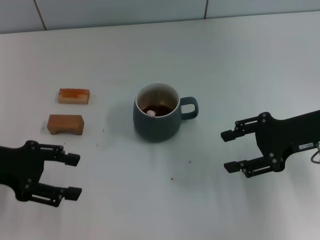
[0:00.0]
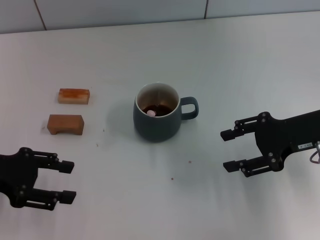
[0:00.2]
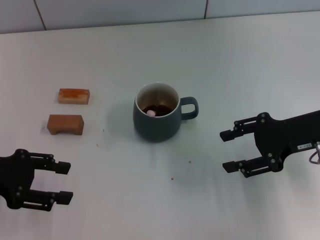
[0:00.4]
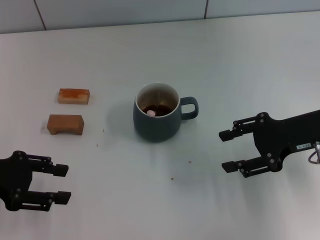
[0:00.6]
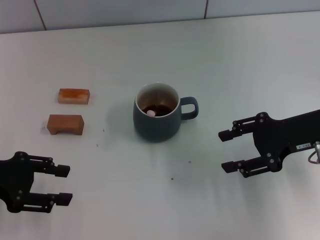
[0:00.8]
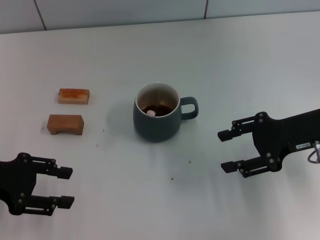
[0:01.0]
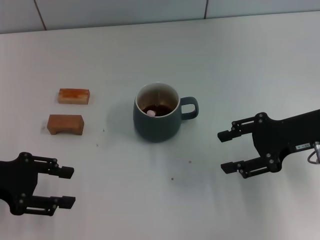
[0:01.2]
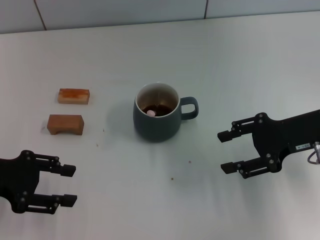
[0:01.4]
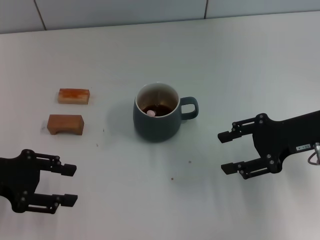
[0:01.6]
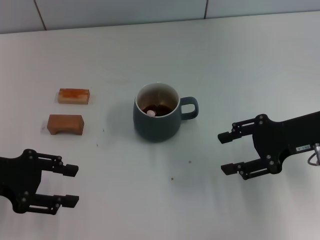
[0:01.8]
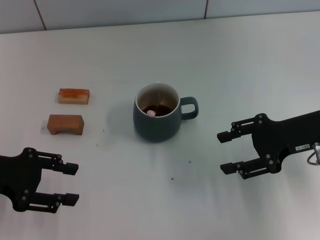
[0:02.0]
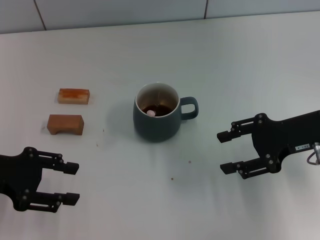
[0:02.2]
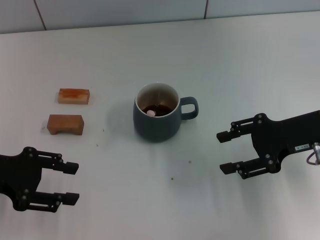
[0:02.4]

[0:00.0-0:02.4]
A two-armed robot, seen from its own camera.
Task of the whole recording: Move the grey cup to the center, lift the pink spoon, stir it three times in the cup, and put the spoon into the cup.
0:00.0 to 0:01.2: There are only small adjustments of the grippers.
0:01.2 to 0:02.4: Neither gripper changes place.

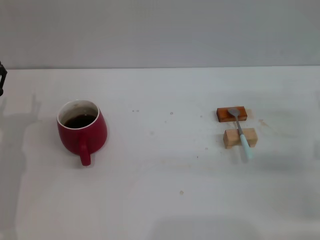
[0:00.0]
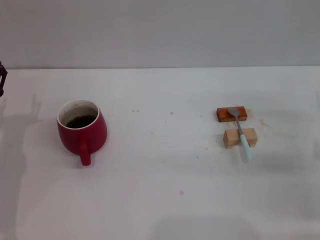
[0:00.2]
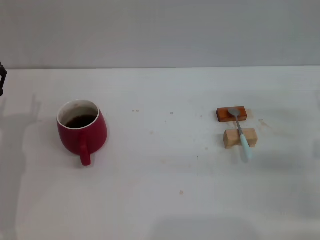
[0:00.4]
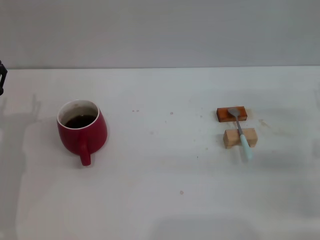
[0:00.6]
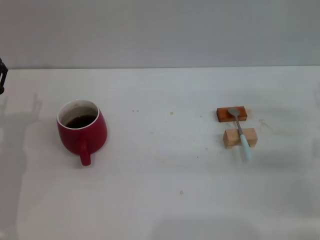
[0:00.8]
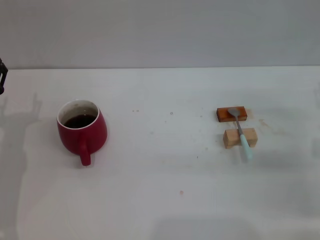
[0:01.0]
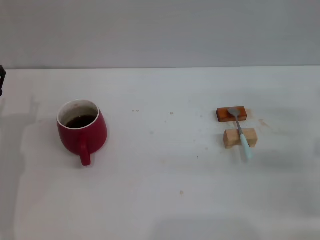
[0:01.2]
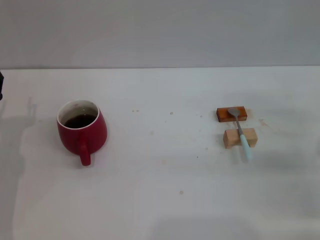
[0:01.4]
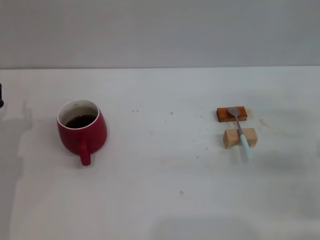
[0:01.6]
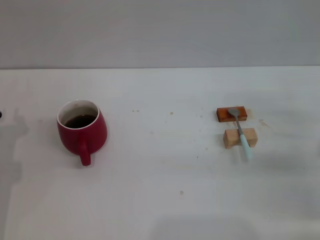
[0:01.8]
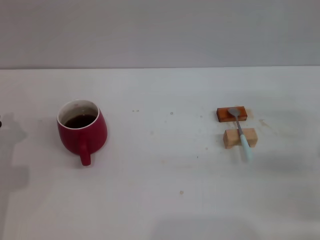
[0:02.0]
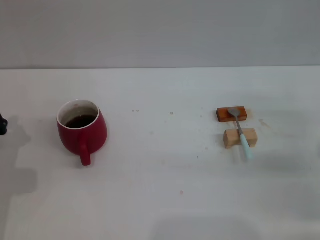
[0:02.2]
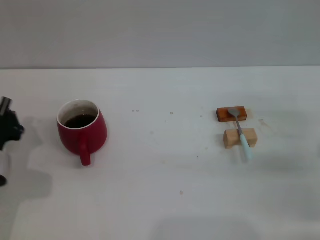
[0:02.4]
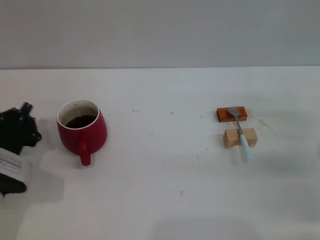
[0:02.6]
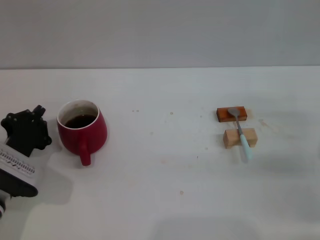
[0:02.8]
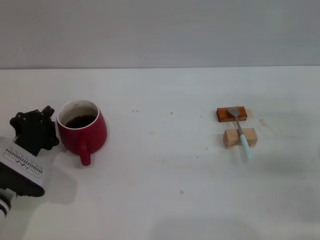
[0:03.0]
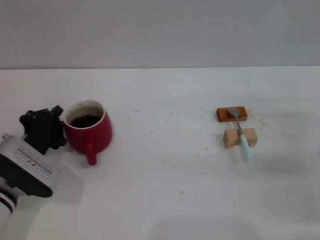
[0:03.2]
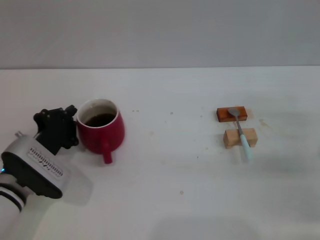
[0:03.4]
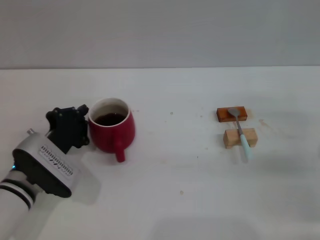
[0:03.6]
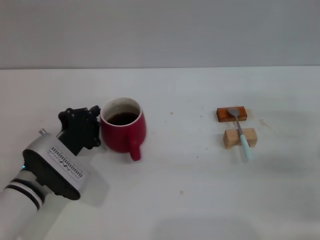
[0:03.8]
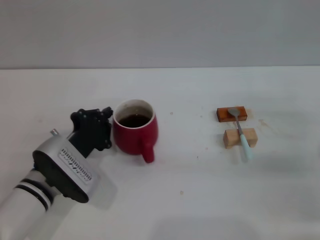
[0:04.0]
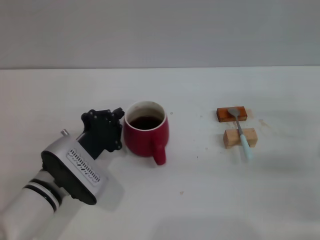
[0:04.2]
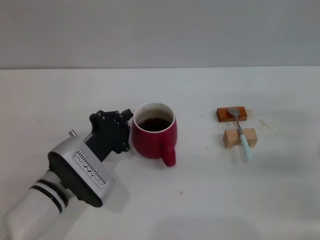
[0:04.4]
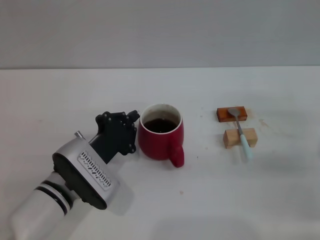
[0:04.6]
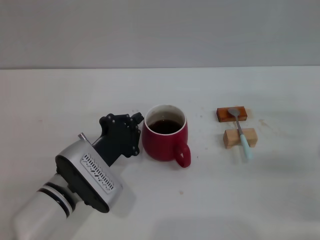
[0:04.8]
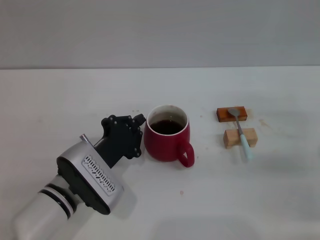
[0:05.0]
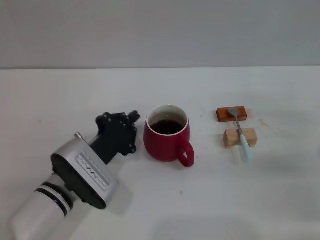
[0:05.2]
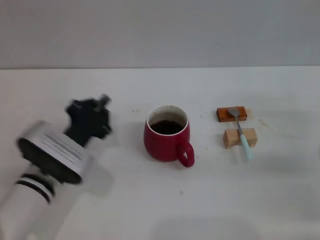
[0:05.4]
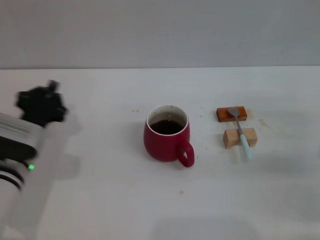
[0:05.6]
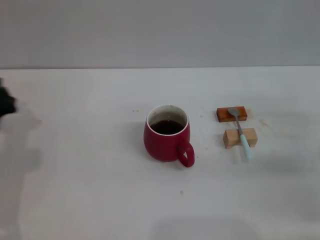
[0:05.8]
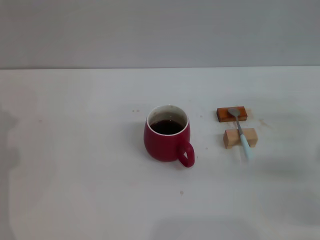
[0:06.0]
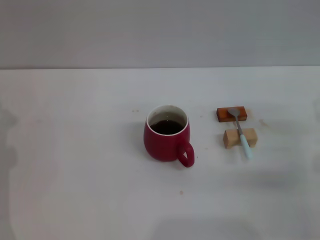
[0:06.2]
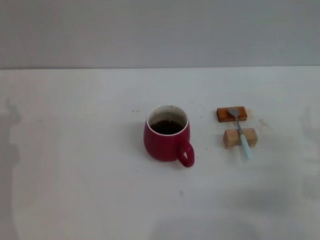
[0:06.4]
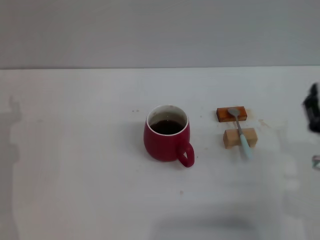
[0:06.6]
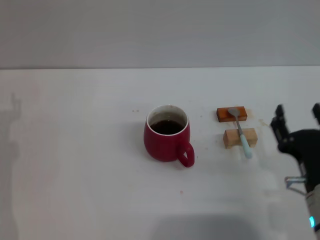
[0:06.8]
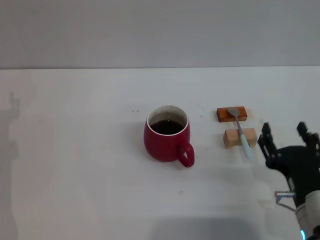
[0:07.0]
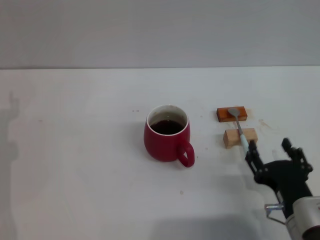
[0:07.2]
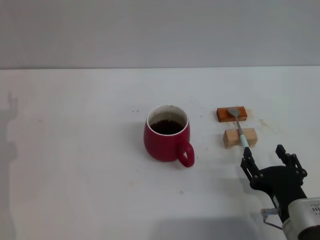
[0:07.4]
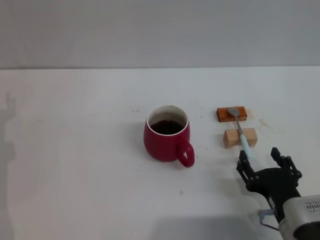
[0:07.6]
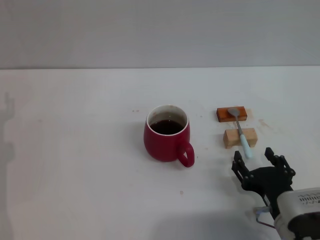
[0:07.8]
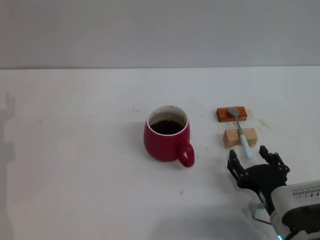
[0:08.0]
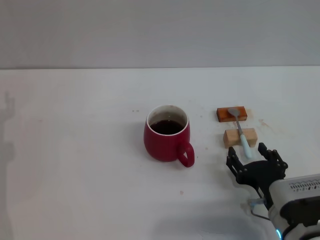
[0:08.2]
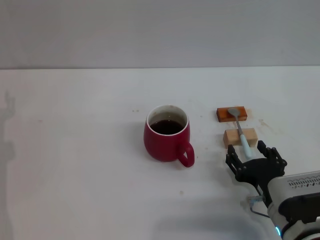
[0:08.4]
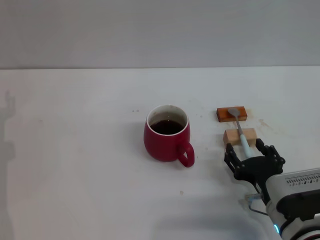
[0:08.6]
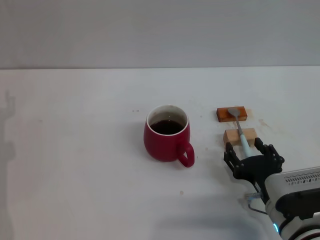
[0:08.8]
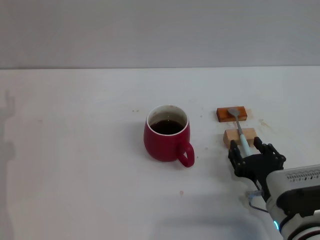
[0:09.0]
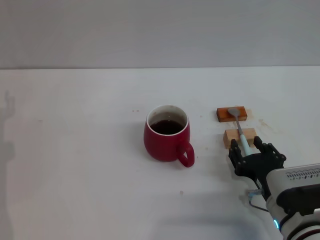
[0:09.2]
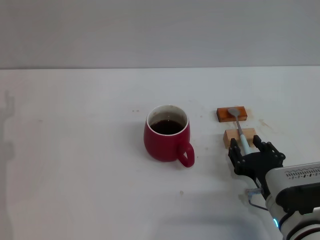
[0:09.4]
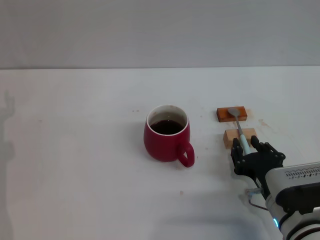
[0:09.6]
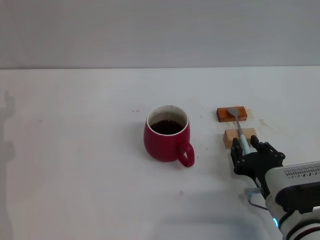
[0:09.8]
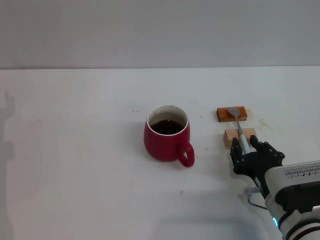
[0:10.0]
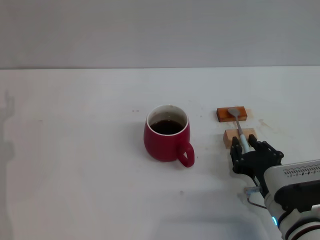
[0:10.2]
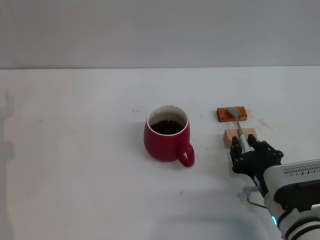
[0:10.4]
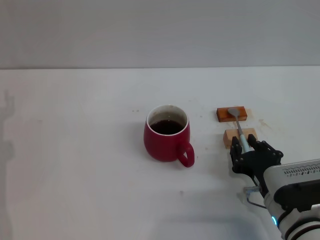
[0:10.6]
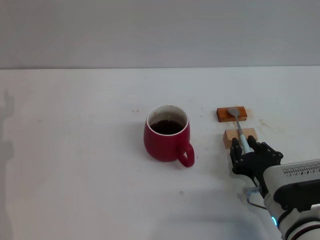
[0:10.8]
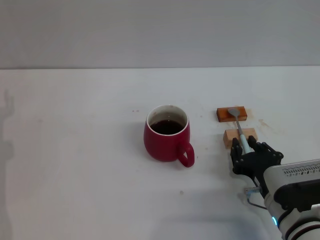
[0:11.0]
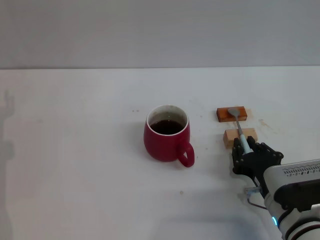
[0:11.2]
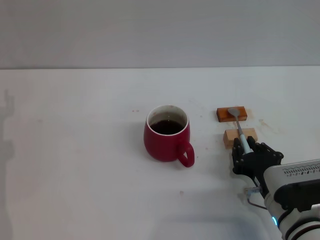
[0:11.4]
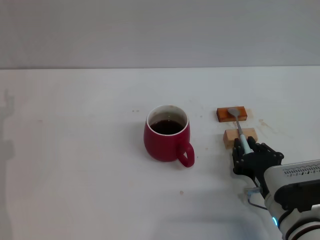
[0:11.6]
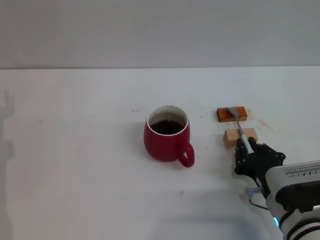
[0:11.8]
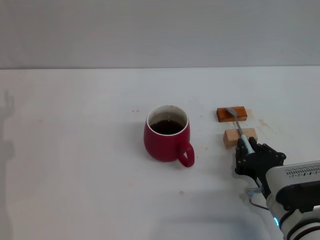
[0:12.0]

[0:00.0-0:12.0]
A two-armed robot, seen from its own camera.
Task of the whole recording: Move the red cup to the center, lift the blue spoon, stir it three times in the cup, and put the spoon into the cup.
Step, 0:00.8 to 0:04.8: Move the cup in the center of the table with left gripper.
0:01.6 to 0:03.0: The left gripper shifts by approximately 5 cm, and closes.
0:03.0 to 0:04.4: The left gripper travels to the right by roughly 10 cm.
0:04.4 to 0:06.0: The left gripper goes roughly 15 cm to the left.
0:06.0 to 0:07.6: The right gripper shifts about 20 cm to the left and backward; the left gripper opens up.
0:07.6 to 0:09.0: The grippers move only a little.
0:09.0 to 0:10.4: The right gripper closes.
0:10.4 to 0:12.0: Neither gripper changes place.

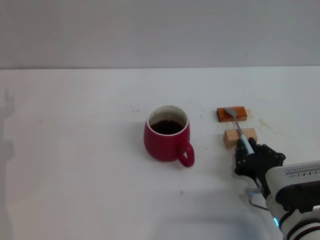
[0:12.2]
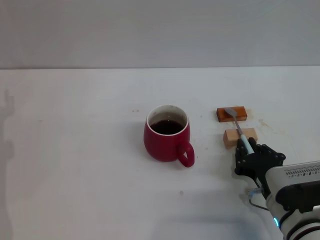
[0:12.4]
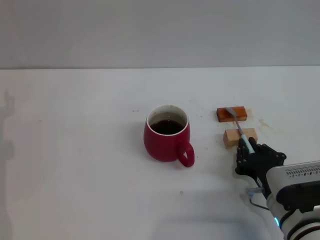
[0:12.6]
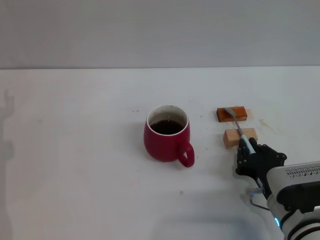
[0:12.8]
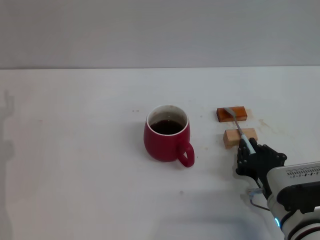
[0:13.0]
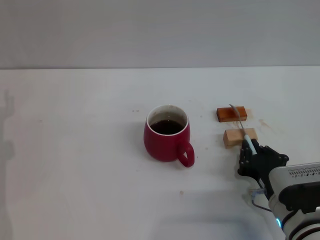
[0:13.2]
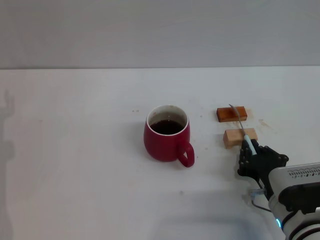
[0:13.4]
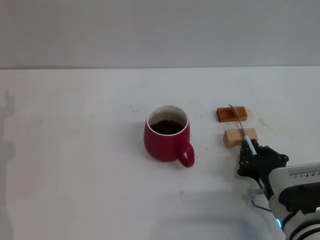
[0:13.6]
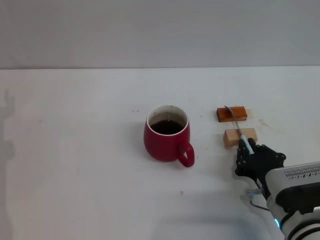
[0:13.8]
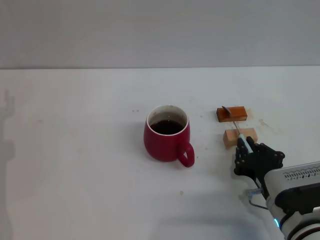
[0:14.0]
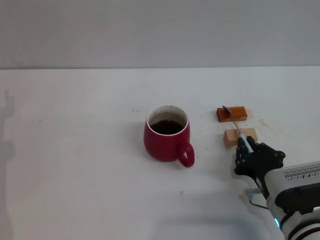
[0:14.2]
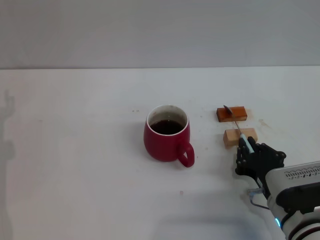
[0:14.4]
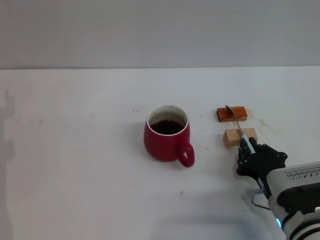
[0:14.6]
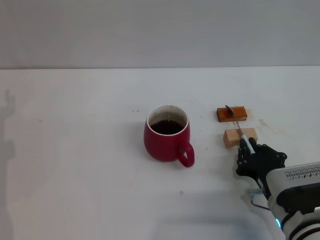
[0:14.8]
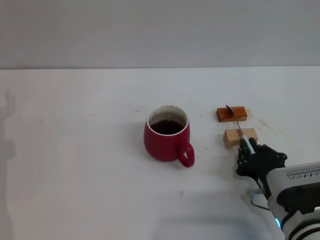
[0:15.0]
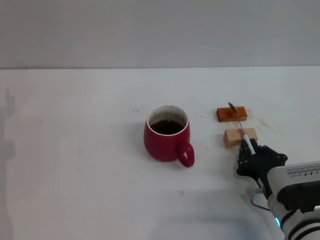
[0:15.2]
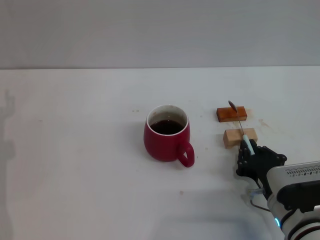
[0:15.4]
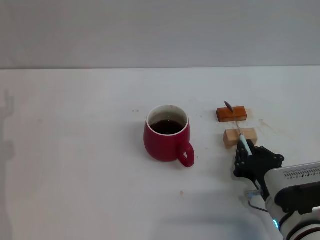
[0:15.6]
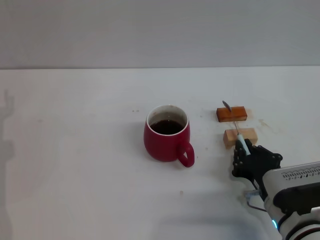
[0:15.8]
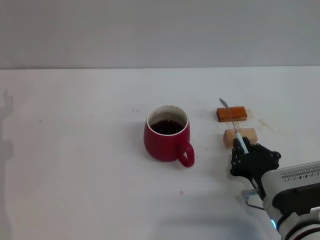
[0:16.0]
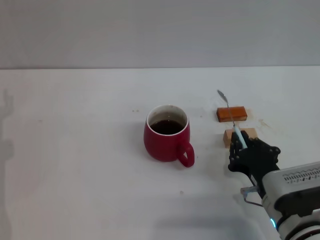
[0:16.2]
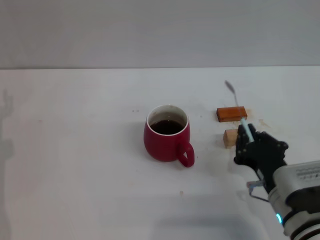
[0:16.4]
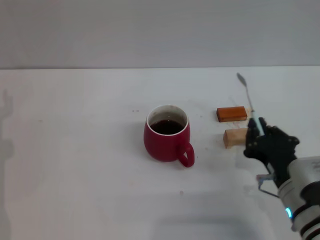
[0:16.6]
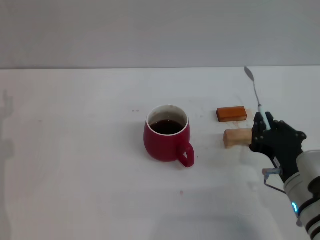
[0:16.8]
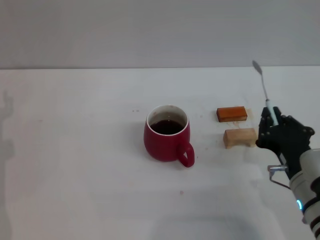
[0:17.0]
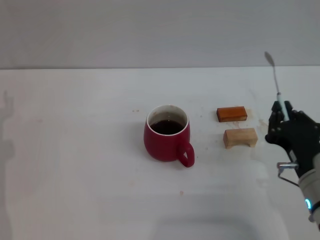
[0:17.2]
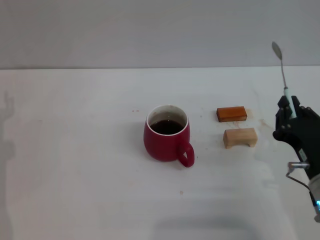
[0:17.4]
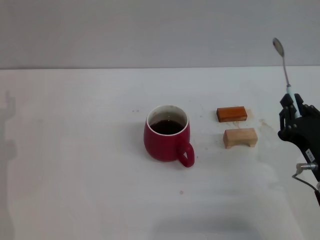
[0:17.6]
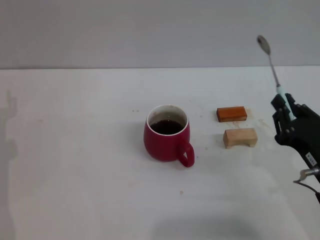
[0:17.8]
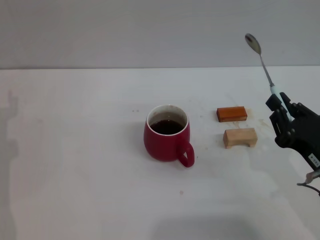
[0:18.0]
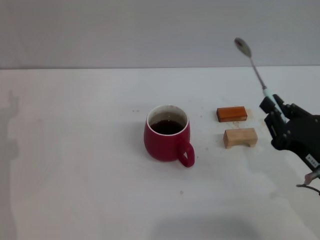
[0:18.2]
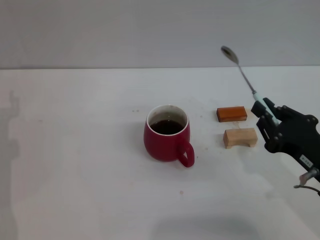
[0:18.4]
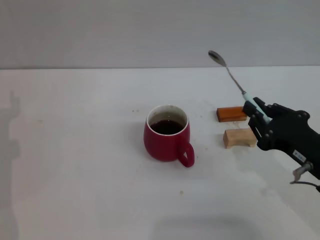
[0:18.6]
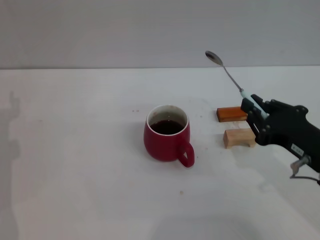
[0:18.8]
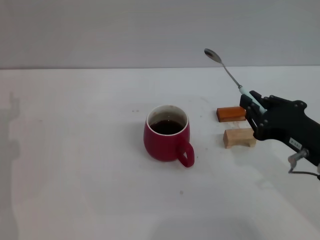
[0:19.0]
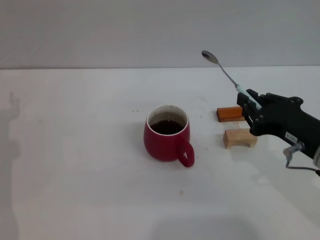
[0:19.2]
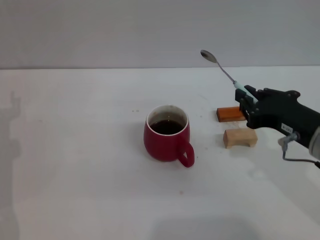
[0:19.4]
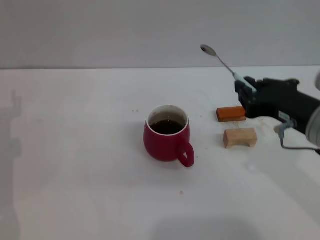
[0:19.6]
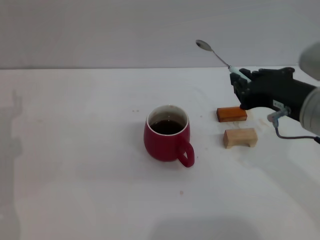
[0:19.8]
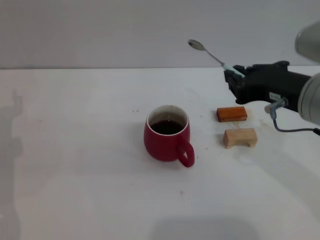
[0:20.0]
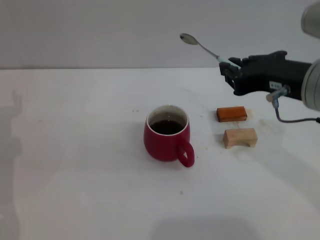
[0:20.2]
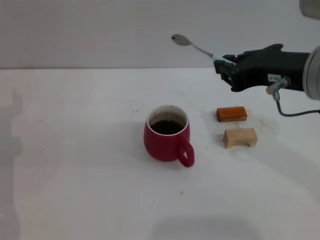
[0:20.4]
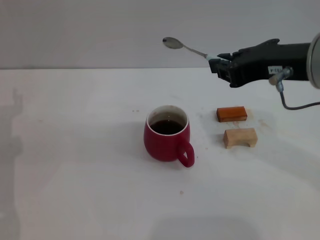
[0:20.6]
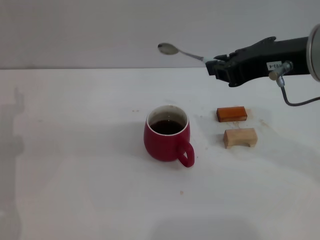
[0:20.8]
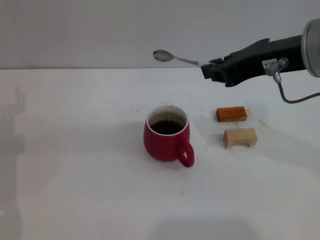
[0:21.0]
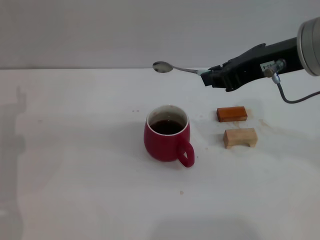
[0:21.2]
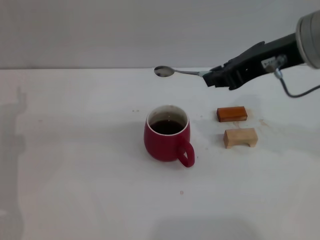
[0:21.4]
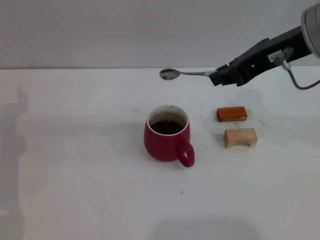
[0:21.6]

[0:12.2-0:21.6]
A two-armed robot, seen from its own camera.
Task of the whole recording: Move the red cup to the center, lift the blue spoon, stir it three times in the cup, and put the spoon into the cup.
Step, 0:12.2 to 0:14.8: Grasp the spoon with right gripper.
0:12.2 to 0:15.4: Neither gripper changes place.
0:15.4 to 0:17.0: The right gripper goes roughly 5 cm upward.
0:17.0 to 0:18.4: The right gripper changes place by roughly 5 cm.
0:18.4 to 0:20.0: The right gripper heads upward, to the left and forward, covering some 15 cm.
0:20.0 to 0:21.6: The right gripper travels upward and forward by some 10 cm.
